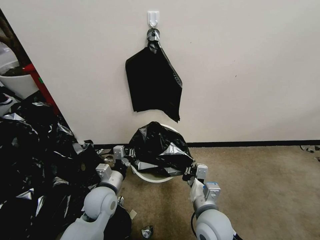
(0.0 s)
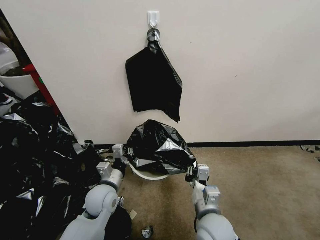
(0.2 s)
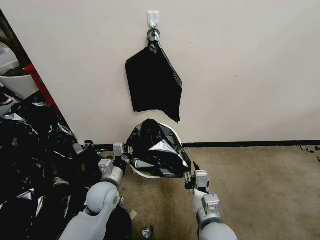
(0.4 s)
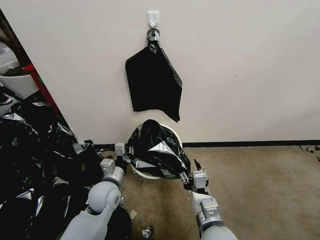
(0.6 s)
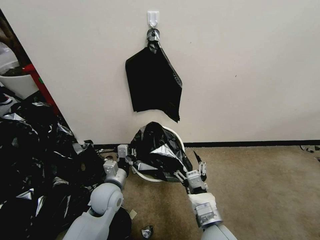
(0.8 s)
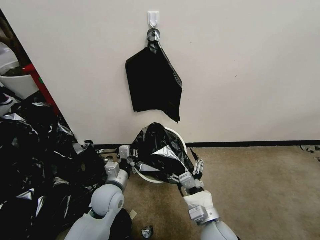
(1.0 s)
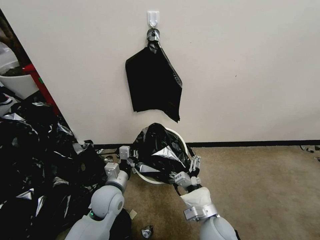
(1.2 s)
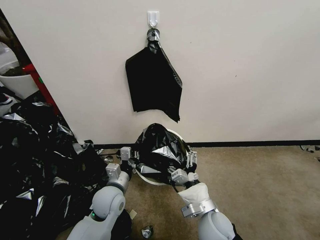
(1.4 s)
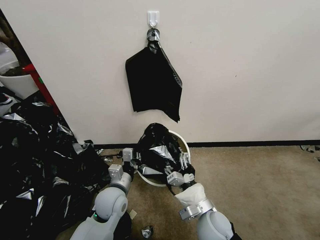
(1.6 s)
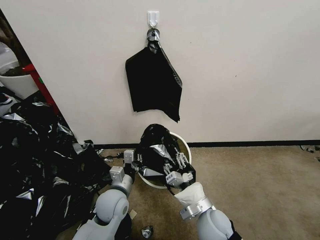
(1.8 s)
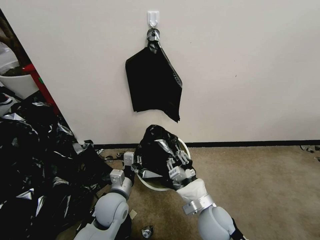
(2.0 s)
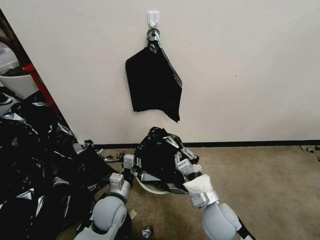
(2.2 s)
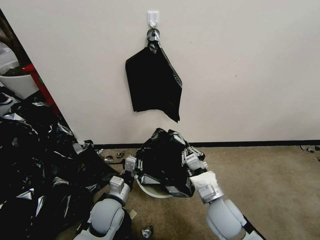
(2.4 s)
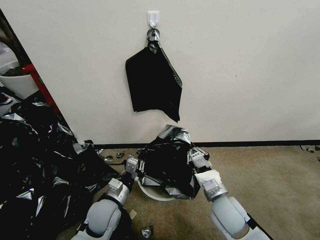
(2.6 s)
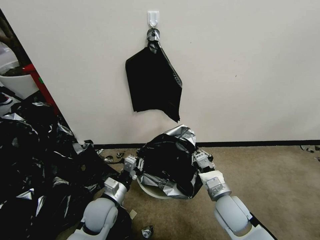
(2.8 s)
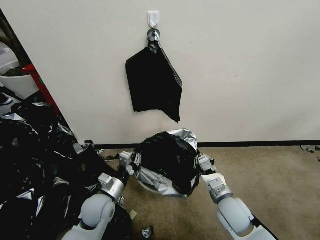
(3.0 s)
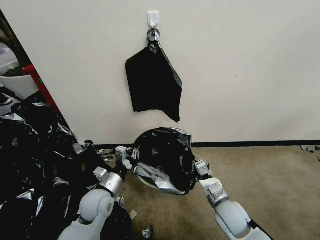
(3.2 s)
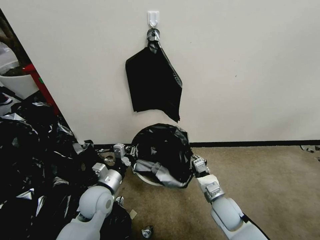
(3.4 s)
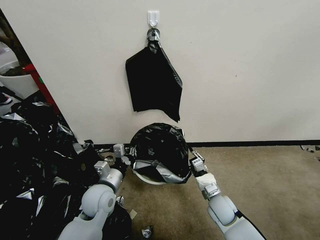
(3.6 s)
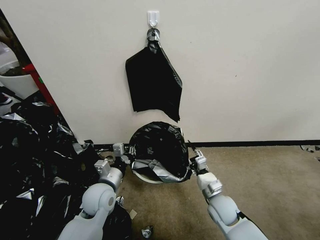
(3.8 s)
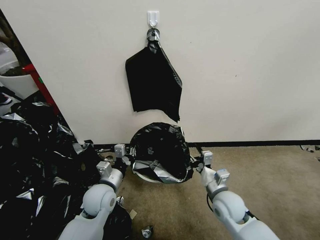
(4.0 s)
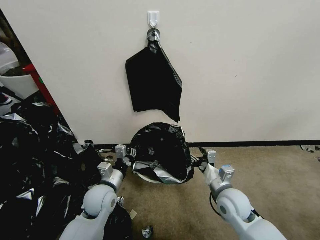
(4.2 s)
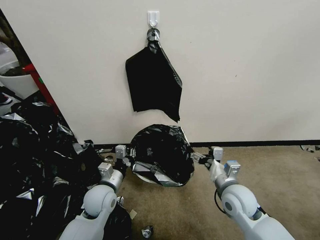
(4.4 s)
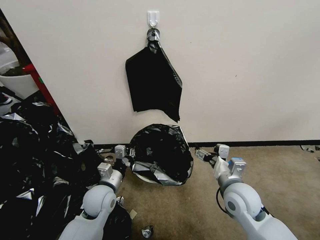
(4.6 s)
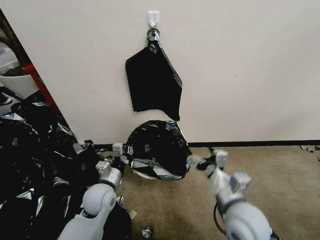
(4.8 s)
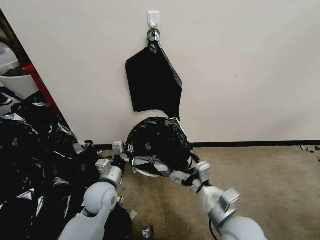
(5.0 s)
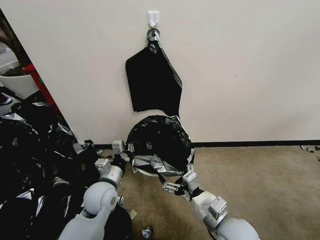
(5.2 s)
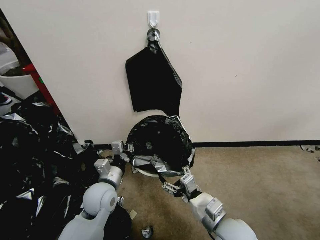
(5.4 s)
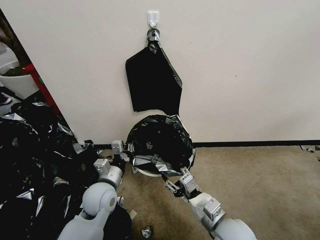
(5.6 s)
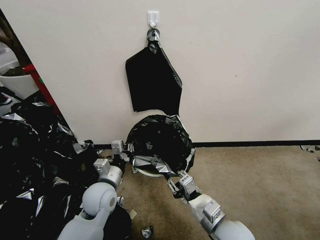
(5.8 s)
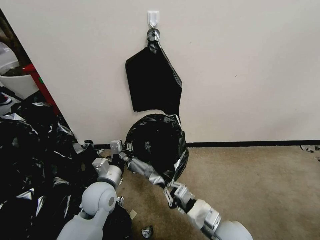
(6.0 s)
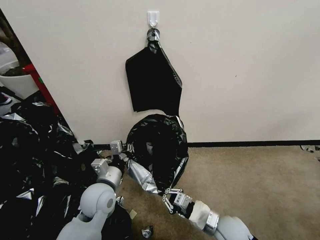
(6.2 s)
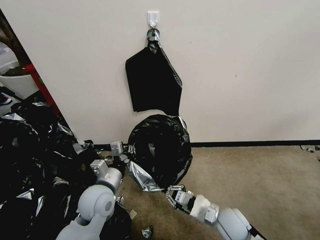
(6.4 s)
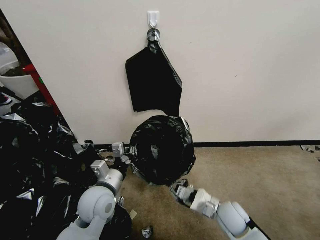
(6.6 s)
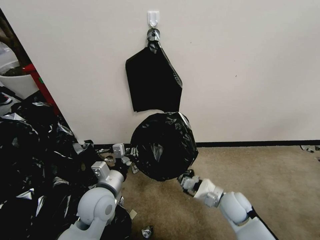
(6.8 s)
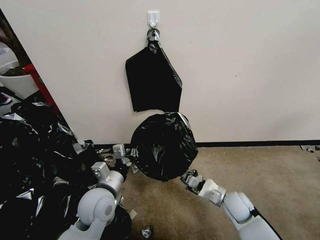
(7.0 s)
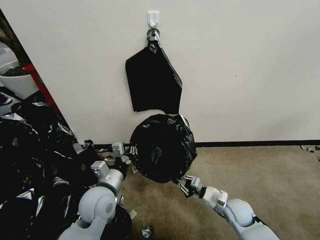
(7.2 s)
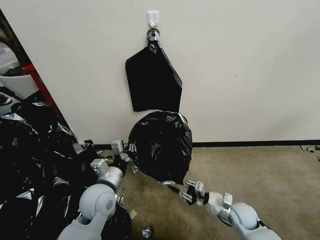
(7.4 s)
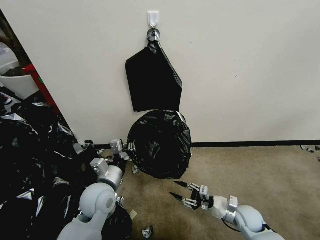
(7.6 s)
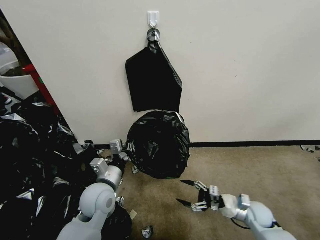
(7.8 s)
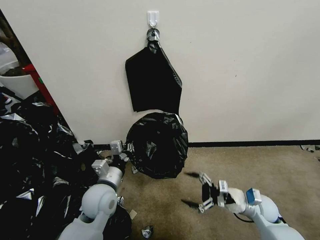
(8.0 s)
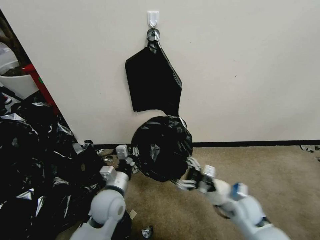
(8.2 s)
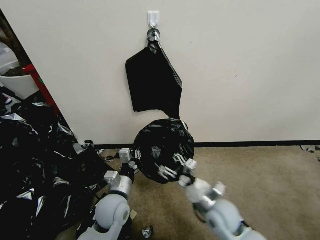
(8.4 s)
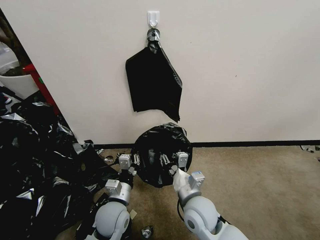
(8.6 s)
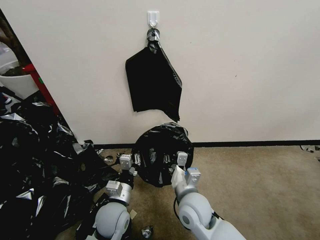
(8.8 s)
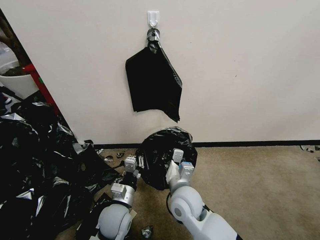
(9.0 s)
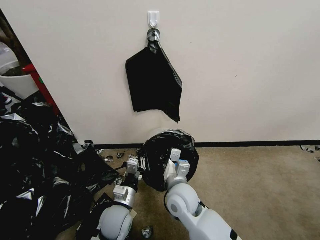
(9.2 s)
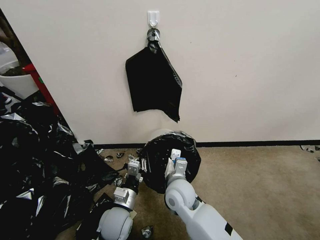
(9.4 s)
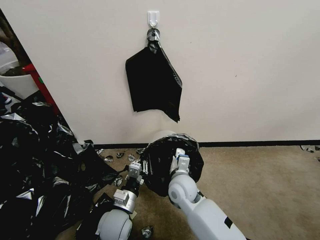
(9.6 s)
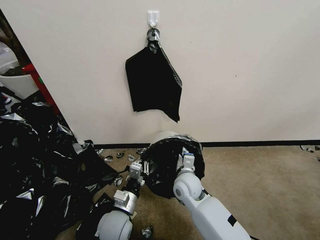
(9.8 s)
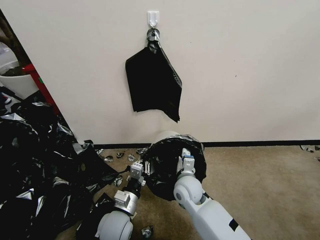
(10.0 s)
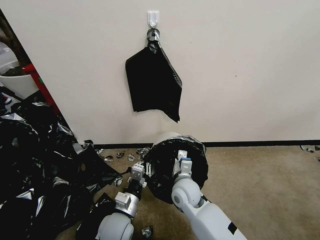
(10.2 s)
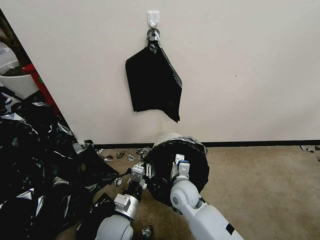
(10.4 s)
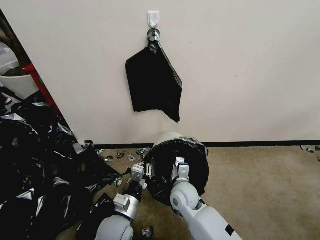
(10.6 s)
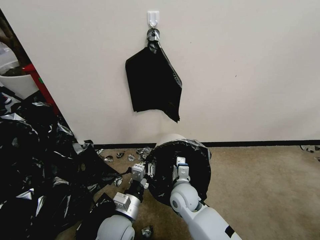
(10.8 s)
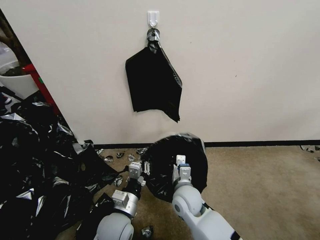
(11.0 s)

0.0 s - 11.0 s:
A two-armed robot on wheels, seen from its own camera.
Task of the whole recording: Place a trash bag onto the trash bin.
0.0 s - 1.6 s: The right gripper opens.
1.6 s - 3.2 s: The right gripper goes some 10 cm to the right, and closes its fingers.
3.2 s - 4.8 s: The right gripper travels upward by roughly 15 cm, and opens up.
4.8 s - 6.2 s: The right gripper heads downward, covering roughly 15 cm, and closes its fingers.
6.2 s - 7.8 s: The right gripper moves to the right, downward and forward, roughly 20 cm, and opens.
7.8 s - 9.4 s: The right gripper goes roughly 30 cm to the left and upward, and closes up; the left gripper moves downward, about 10 cm.
9.4 s - 11.0 s: The grippers move only a little.

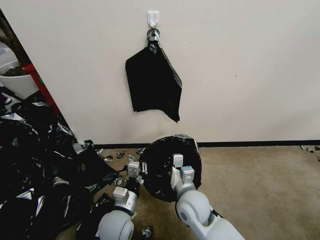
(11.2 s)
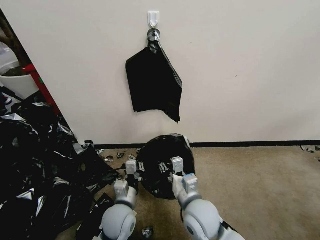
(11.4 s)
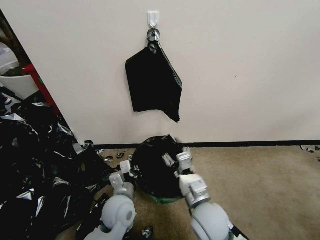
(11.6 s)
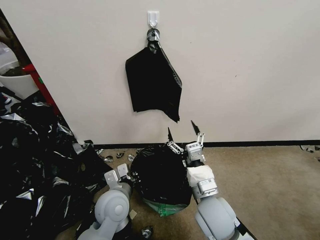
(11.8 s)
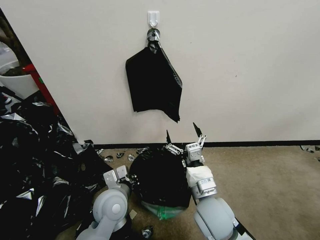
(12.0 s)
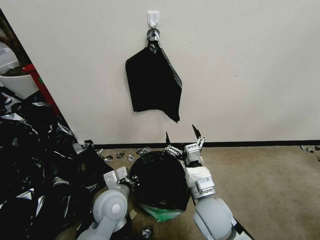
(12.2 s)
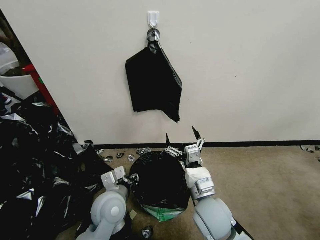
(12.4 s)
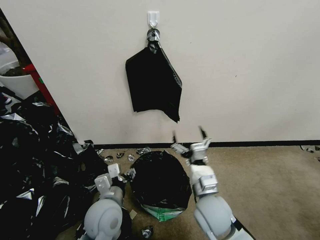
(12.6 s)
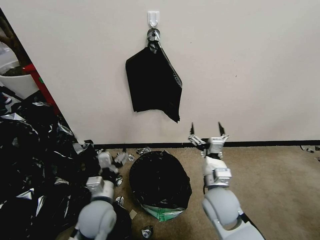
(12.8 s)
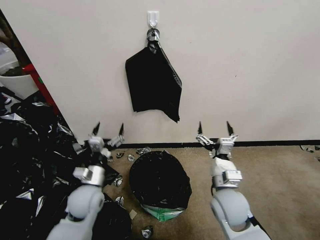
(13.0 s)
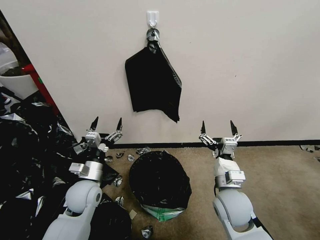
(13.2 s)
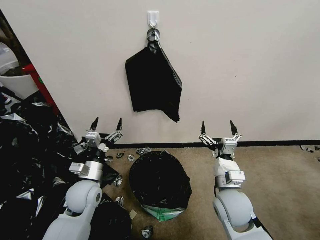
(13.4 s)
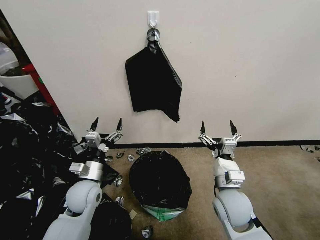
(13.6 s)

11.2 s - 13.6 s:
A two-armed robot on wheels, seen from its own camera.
Task of the whole recording: Place a trash bag onto the trash bin.
11.2 s - 12.4 s: The left gripper travels upward by approximately 5 cm, and opens its fingers; the right gripper ends up approximately 5 cm from where it was, and opens up.
12.4 s - 13.6 s: The left gripper moves to the left, about 10 cm, and opens its fingers. The right gripper goes some 5 cm to the right.
